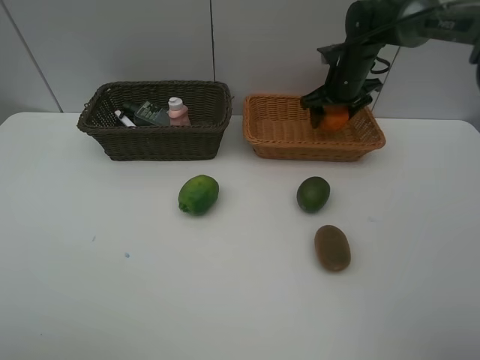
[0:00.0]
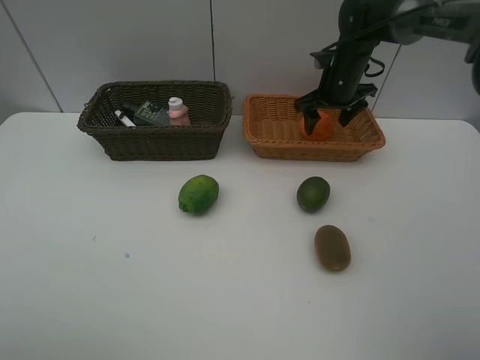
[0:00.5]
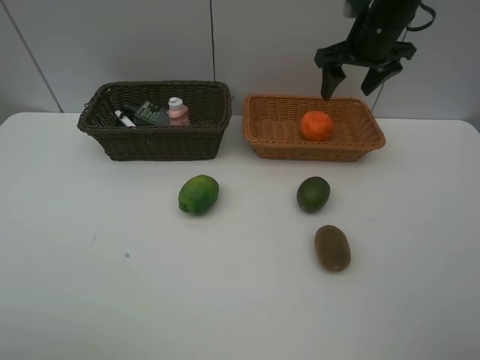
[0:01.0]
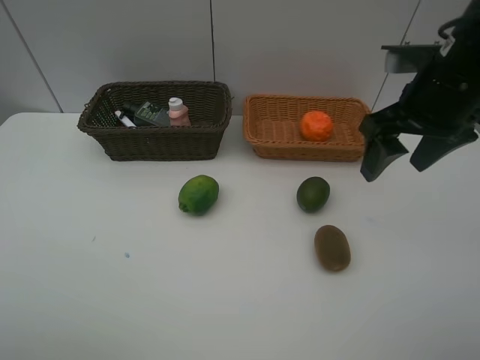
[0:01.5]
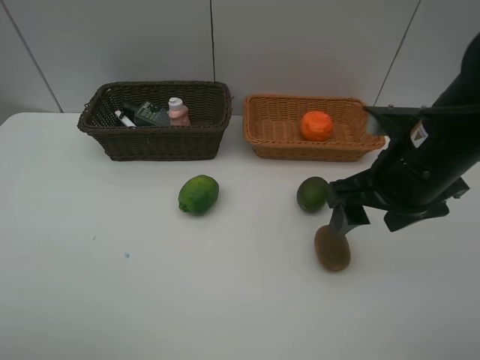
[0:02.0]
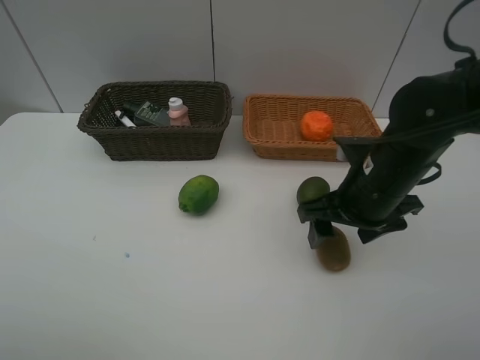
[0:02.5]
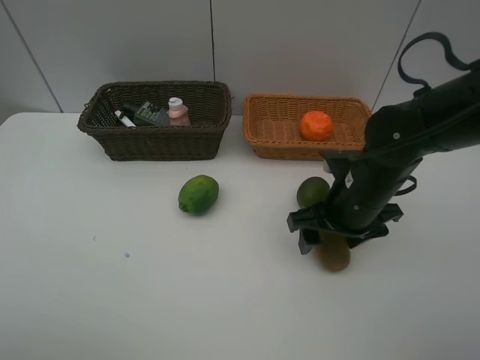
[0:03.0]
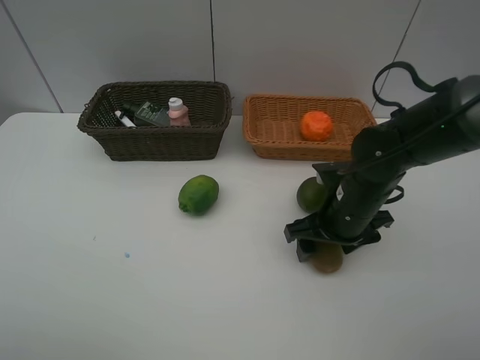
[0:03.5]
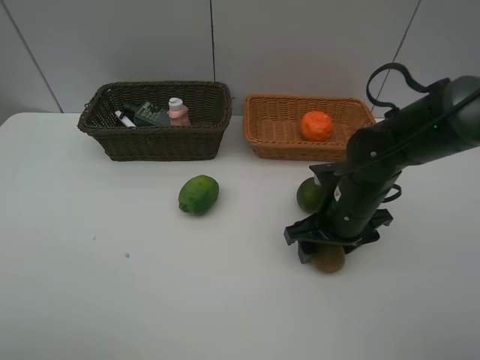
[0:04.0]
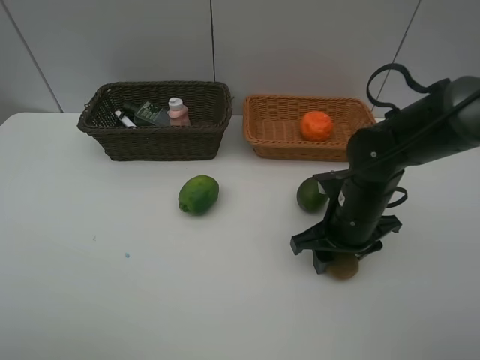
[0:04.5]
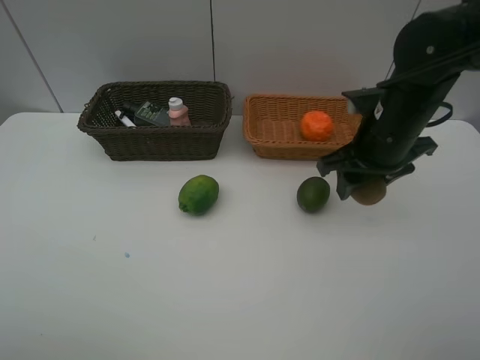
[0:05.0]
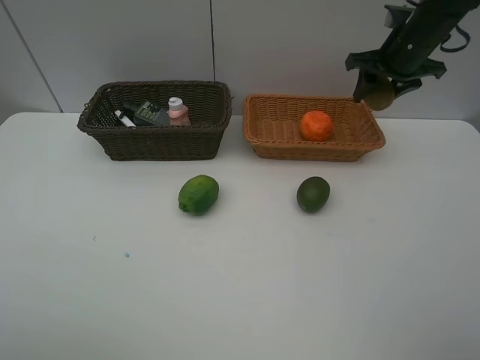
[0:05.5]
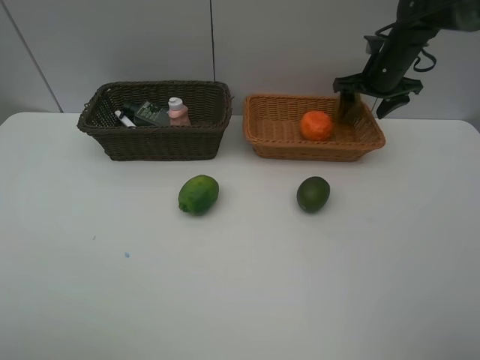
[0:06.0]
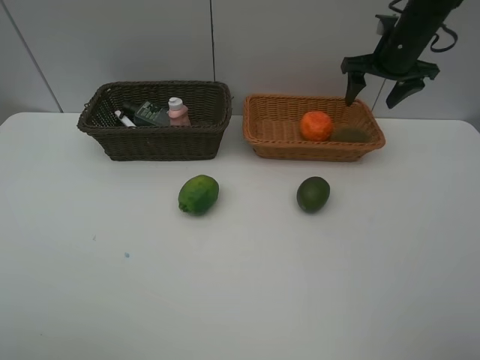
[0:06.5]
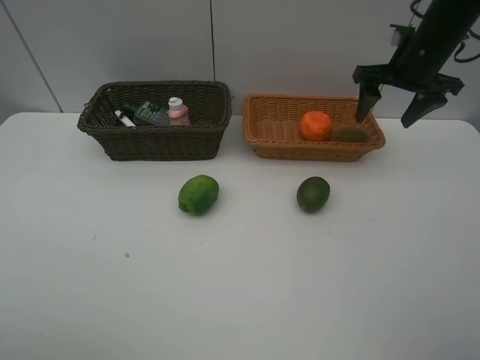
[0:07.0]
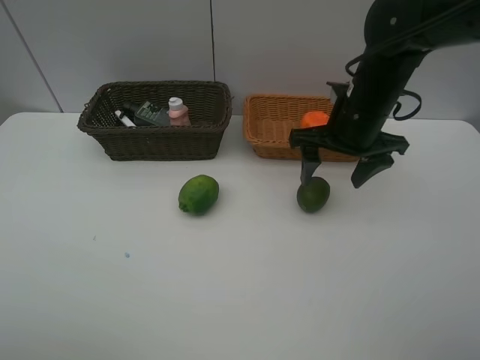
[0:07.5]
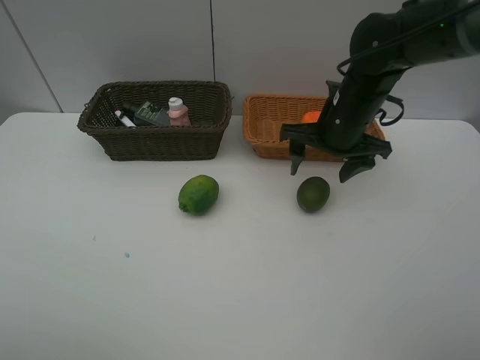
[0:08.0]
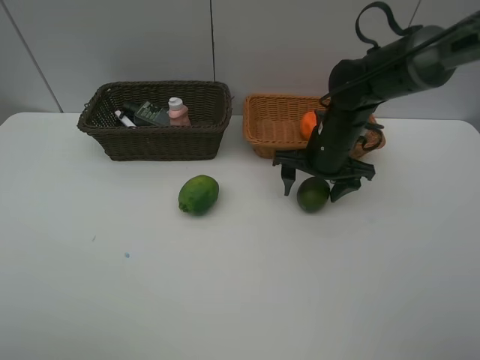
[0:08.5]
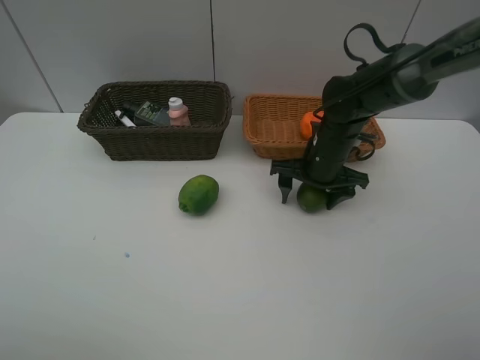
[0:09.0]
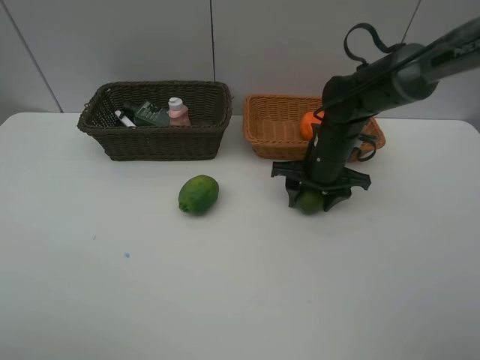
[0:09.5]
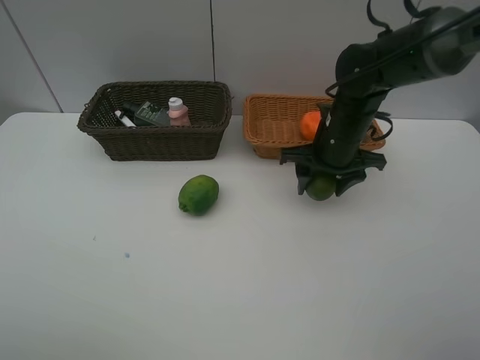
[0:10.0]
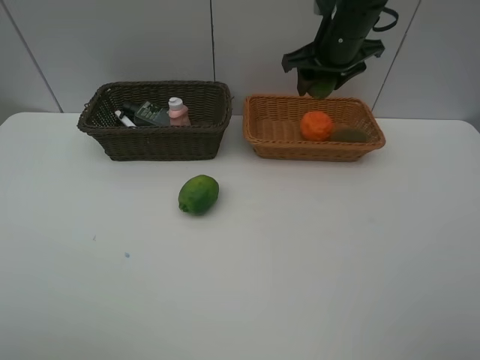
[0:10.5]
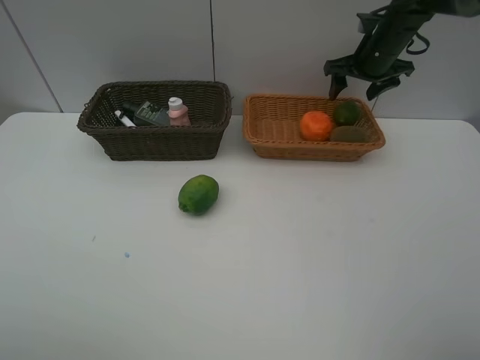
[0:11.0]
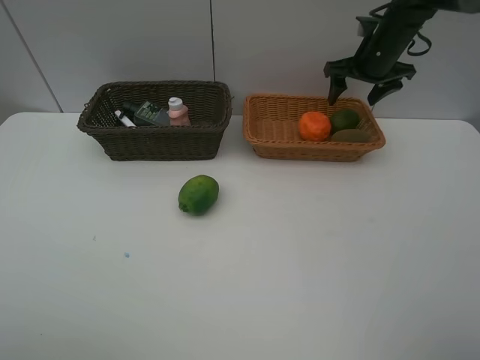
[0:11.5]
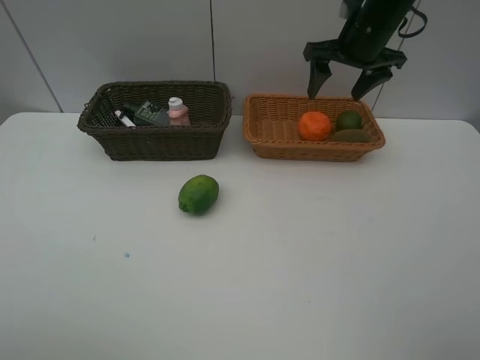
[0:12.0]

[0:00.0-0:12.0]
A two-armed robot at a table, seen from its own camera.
Task of the whole recording: Place multiple objects separately in different baskets.
Step, 0:01.0 to 0:04.5: Pick up kiwi with right gripper.
Step, 0:05.0 to 0:06.0: Place the kiwi in the light basket with right gripper.
Step, 0:06.5 to 0:09.5: Pick up the lime with right gripper.
Step, 0:10.0 to 0:11.0: Place the lime in the light basket with right gripper.
0:00.0 to 0:02.0: The right gripper goes roughly 30 cm backward.
0:02.0 to 0:04.0: The right gripper heads downward, covering some 10 cm.
0:04.0 to 0:06.0: The right gripper heads forward, to the right and upward, covering roughly 30 cm, and closes and opens again.
0:06.0 to 0:08.0: The right gripper is displaced backward and to the left by about 20 cm.
0:08.0 to 0:10.0: The right gripper travels downward and back again, roughly 10 cm each way, and closes.
0:10.0 to 0:12.0: The right gripper is displaced upward and forward by approximately 15 cm, and opens its fingers.

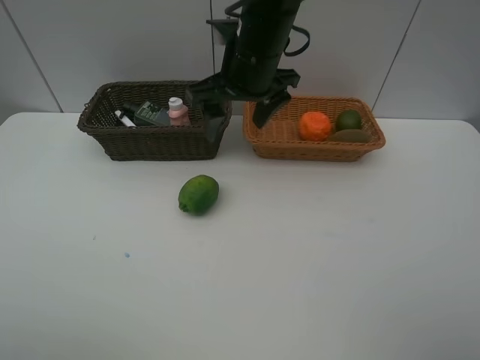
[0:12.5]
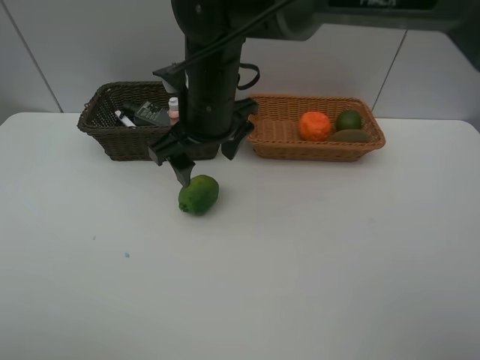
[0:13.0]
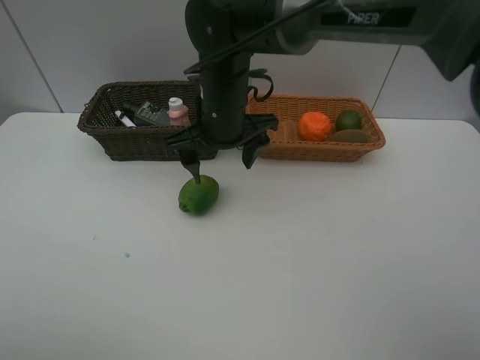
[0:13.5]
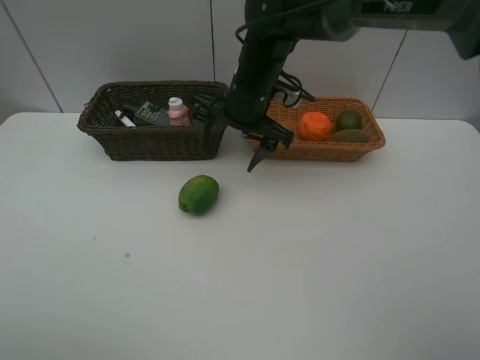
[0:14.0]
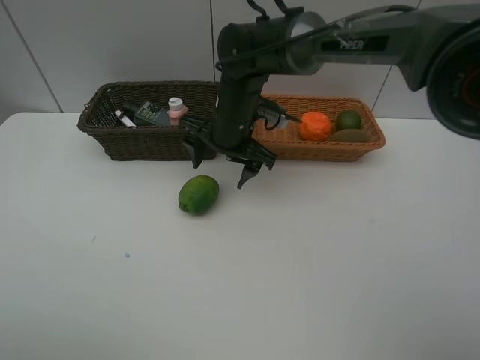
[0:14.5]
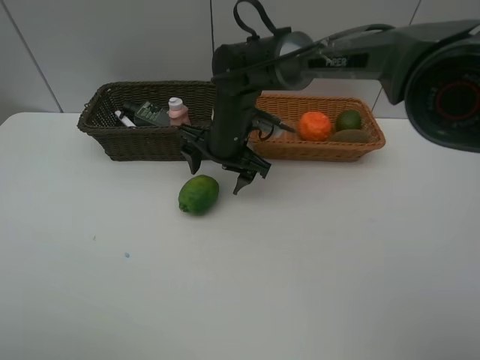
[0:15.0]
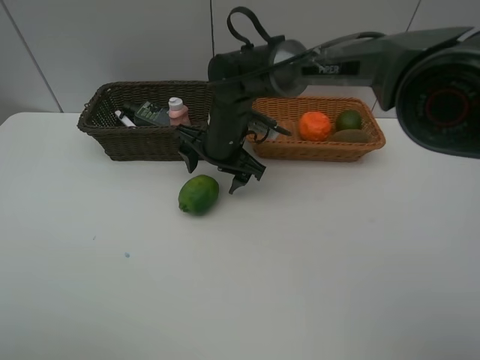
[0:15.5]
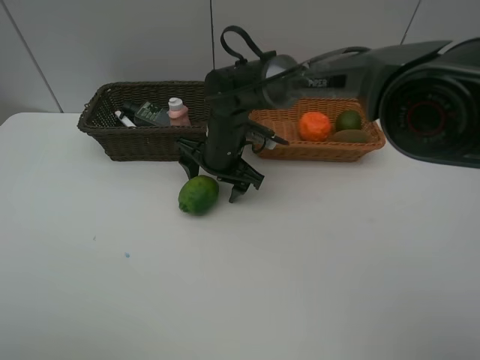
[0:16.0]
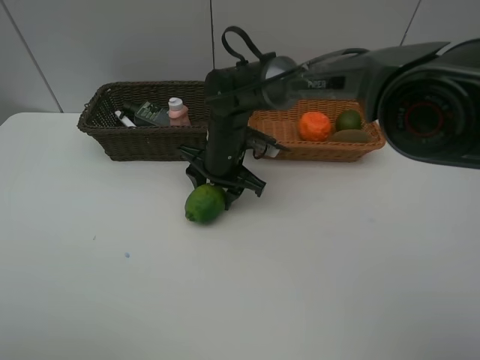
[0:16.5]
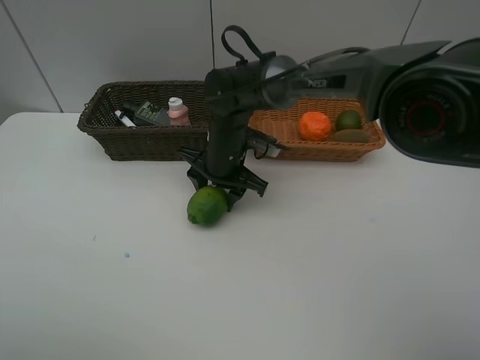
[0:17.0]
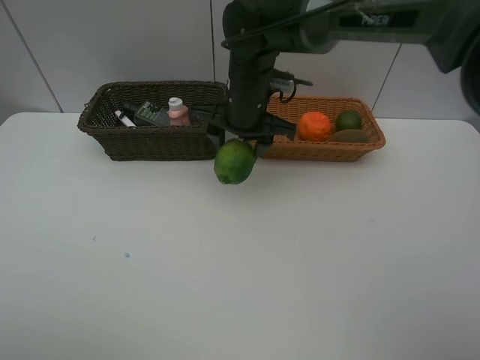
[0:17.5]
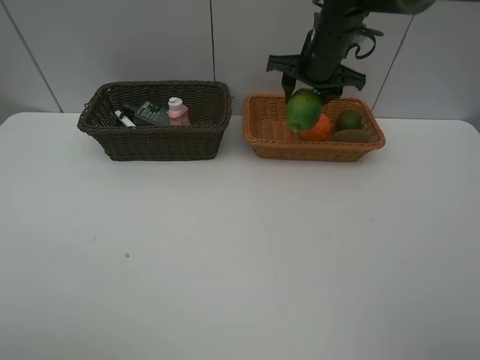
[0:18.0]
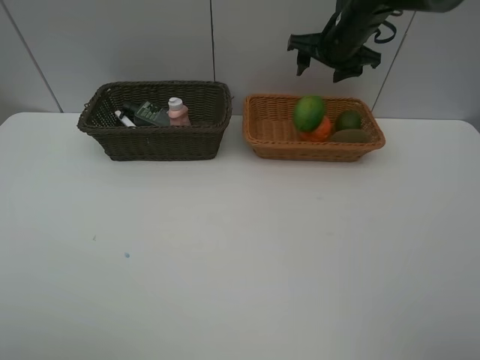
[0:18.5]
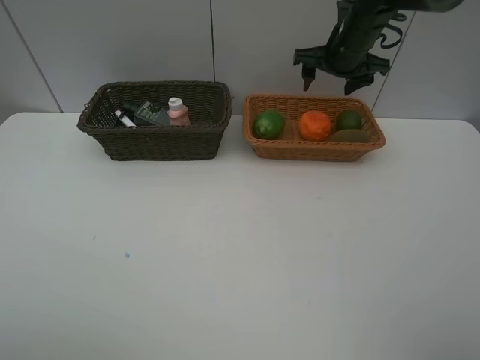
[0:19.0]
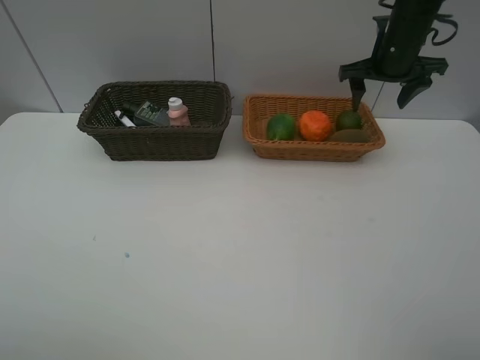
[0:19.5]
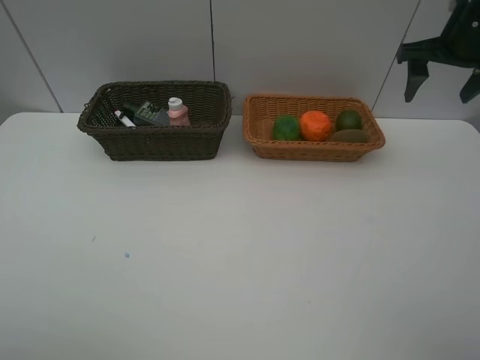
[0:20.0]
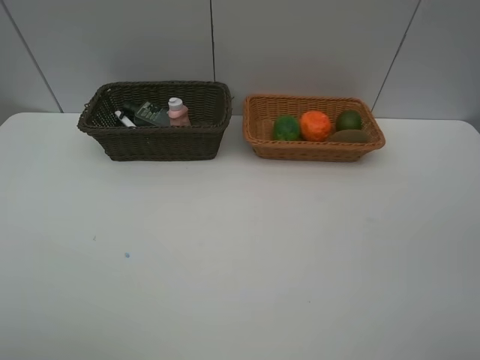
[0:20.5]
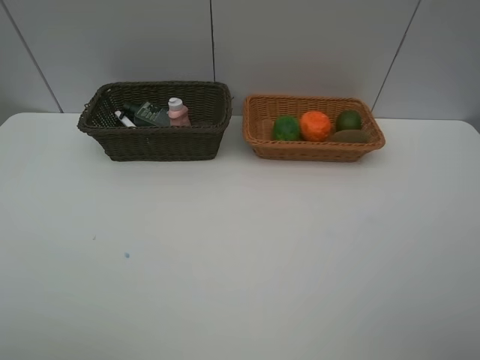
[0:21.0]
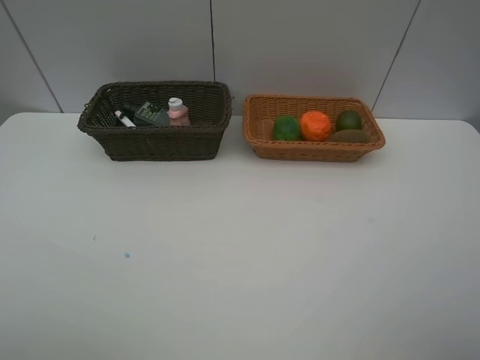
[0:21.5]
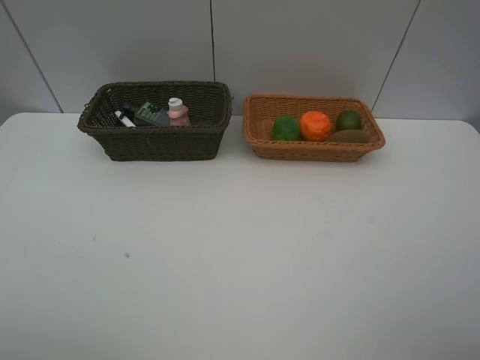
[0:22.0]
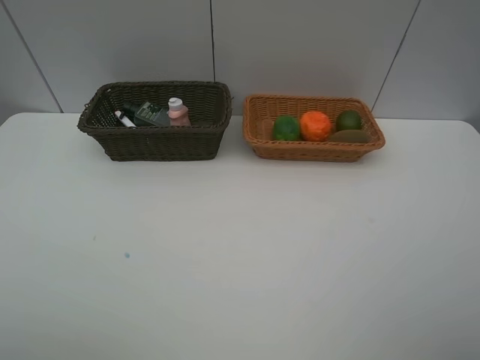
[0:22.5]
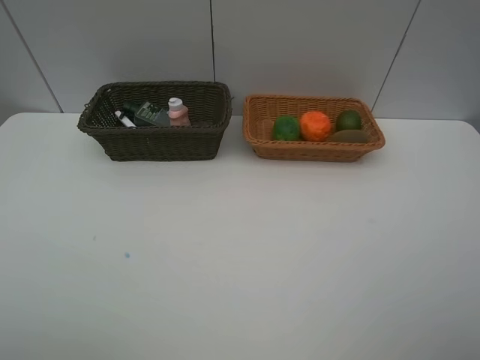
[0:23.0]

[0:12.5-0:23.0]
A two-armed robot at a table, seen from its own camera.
Task of the whole recording: Place multiple objects separately in different baskets.
Step, 0:12.5 to 0:17.0: Pick up the lime with right gripper.
Step, 0:17.5 to 0:18.5: Place the lime in the light basket with right gripper.
0:12.5 to 0:14.5: The right gripper moves downward, roughly 10 cm.
0:14.5 to 0:16.5: The right gripper moves downward, some 5 cm, and closes up.
0:16.5 to 0:19.0: The right gripper shifts roughly 25 cm to the right, upward and forward, and opens.
0:19.0 to 0:21.0: The right gripper travels backward by some 40 cm.

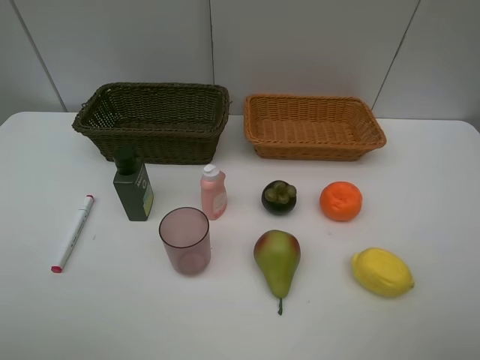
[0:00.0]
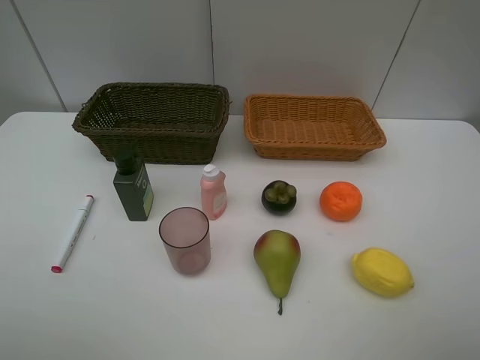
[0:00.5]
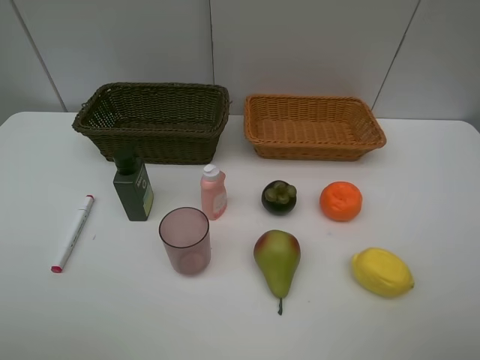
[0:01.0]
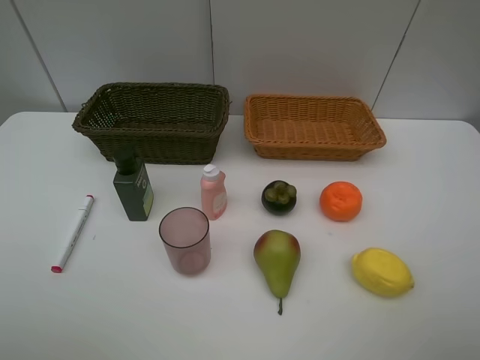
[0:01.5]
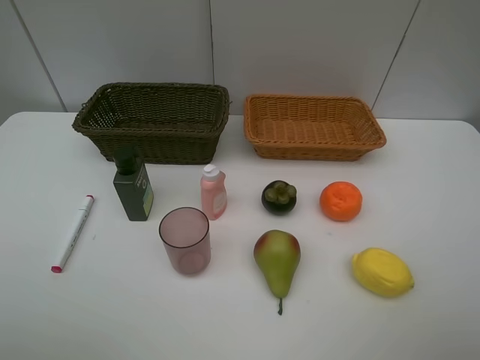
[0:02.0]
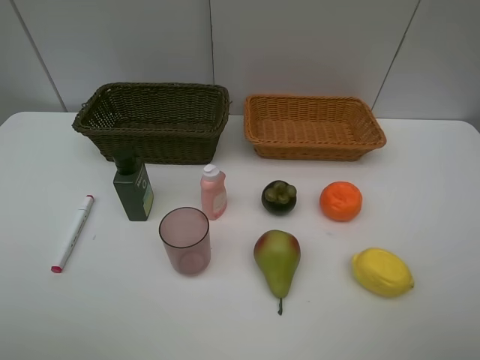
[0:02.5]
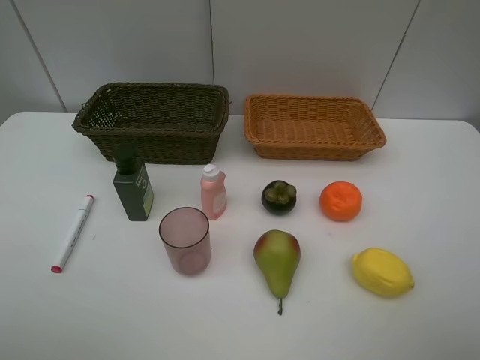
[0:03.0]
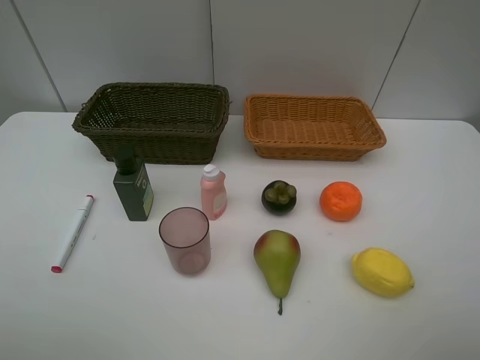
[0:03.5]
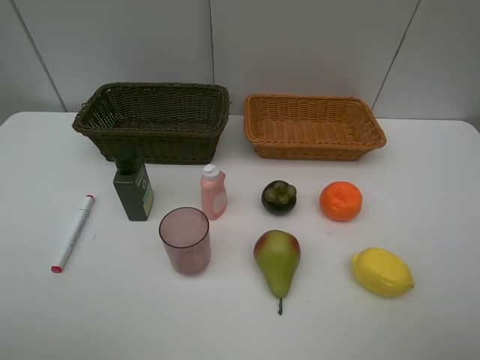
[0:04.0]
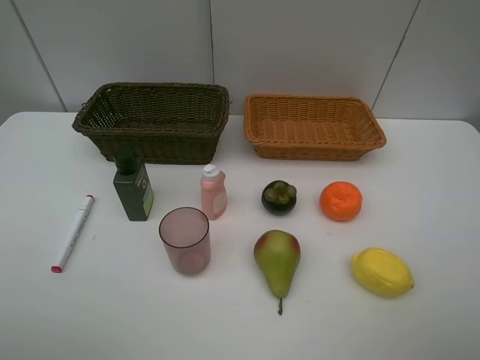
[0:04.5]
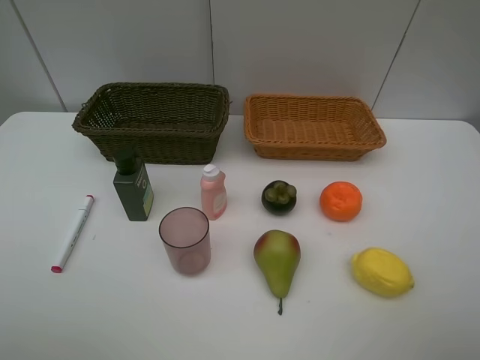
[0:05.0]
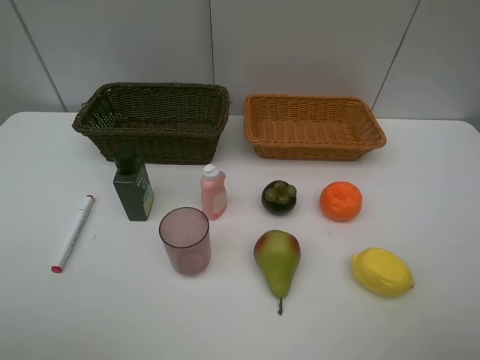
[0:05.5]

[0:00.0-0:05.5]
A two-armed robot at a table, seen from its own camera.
Task of the whole recording: Place multiple objects separately in different baskets.
0:00.0 to 0:05.5: The two grippers keep their place.
